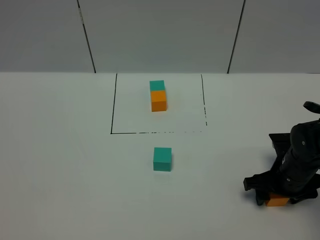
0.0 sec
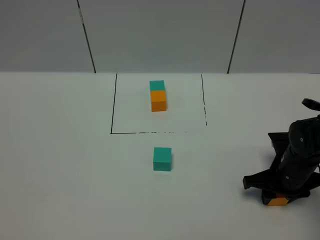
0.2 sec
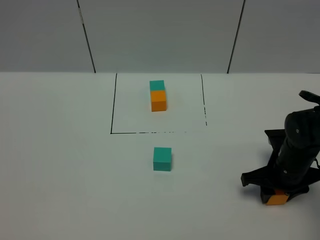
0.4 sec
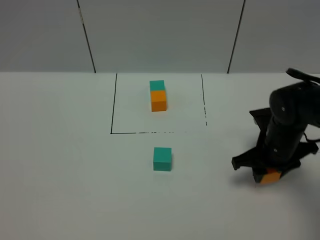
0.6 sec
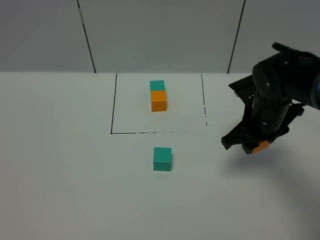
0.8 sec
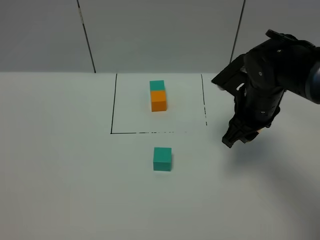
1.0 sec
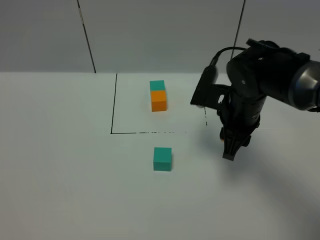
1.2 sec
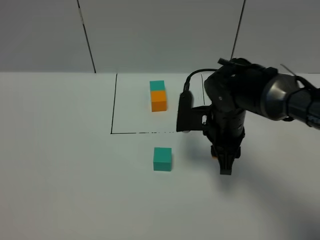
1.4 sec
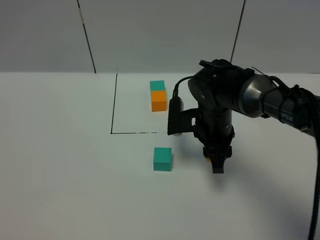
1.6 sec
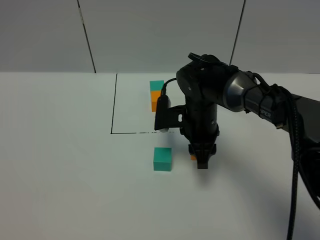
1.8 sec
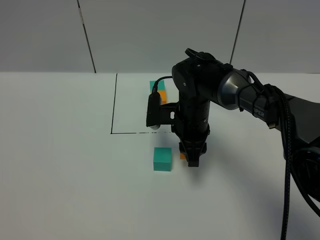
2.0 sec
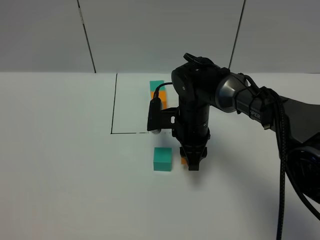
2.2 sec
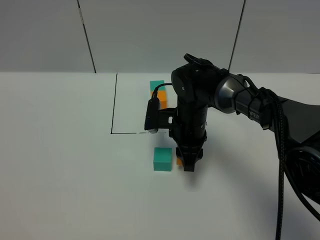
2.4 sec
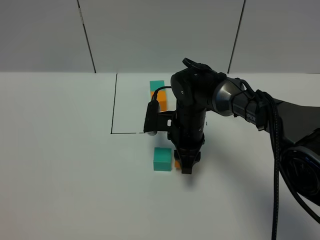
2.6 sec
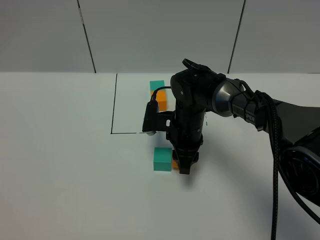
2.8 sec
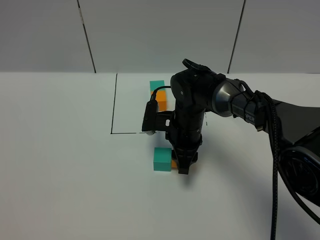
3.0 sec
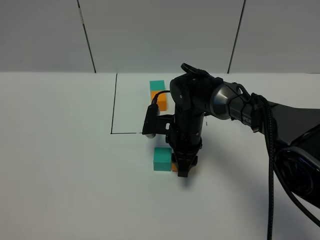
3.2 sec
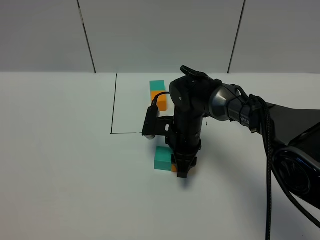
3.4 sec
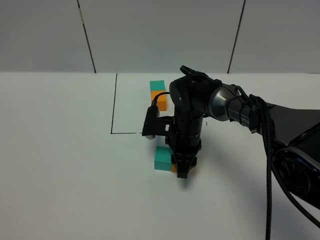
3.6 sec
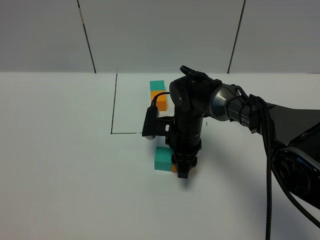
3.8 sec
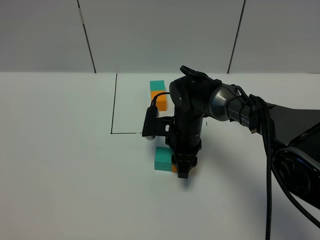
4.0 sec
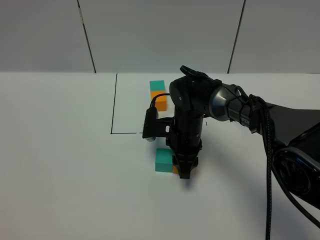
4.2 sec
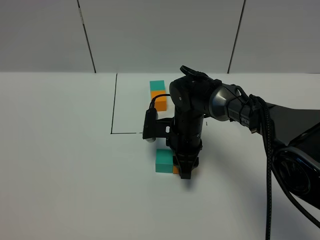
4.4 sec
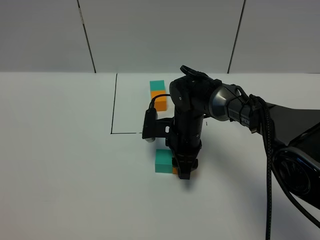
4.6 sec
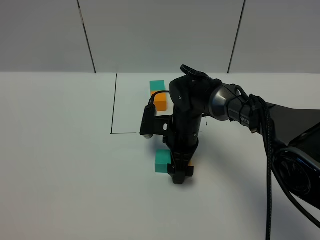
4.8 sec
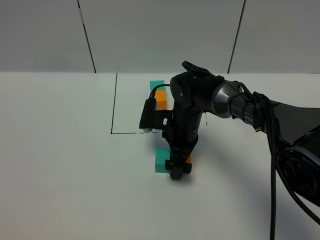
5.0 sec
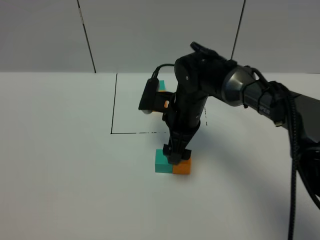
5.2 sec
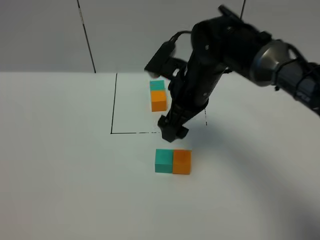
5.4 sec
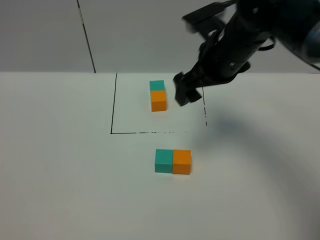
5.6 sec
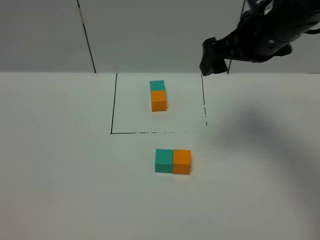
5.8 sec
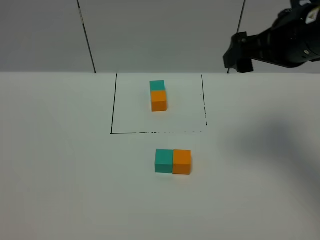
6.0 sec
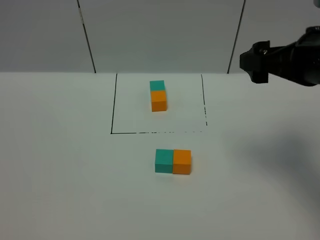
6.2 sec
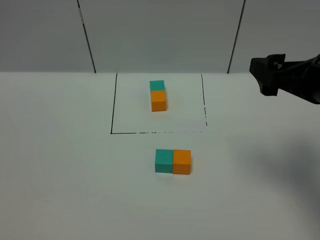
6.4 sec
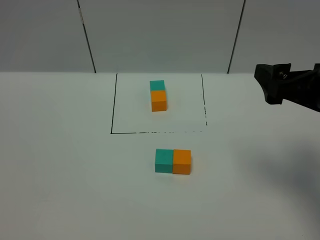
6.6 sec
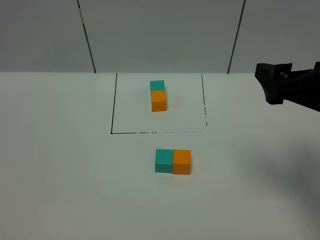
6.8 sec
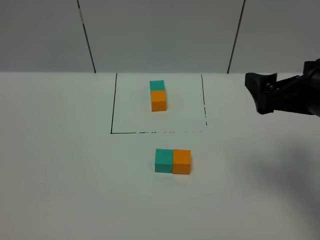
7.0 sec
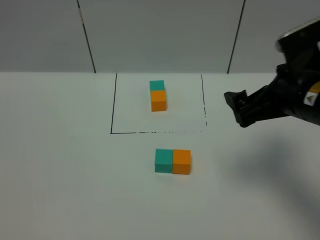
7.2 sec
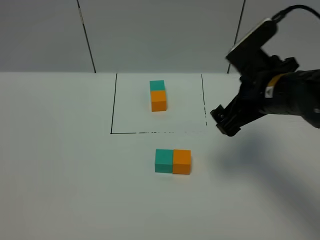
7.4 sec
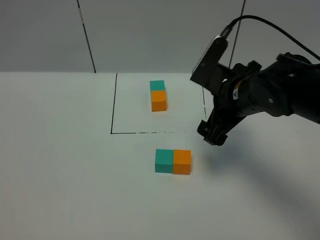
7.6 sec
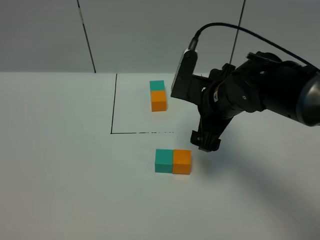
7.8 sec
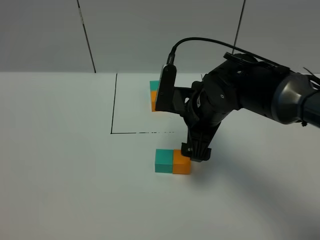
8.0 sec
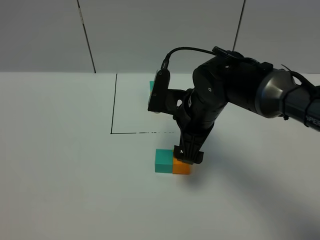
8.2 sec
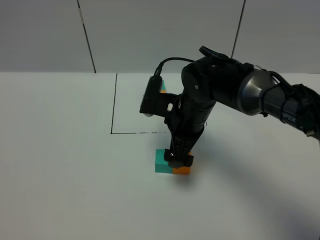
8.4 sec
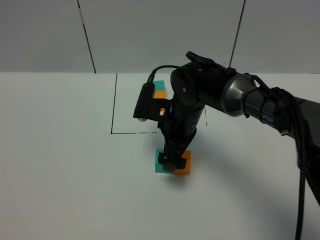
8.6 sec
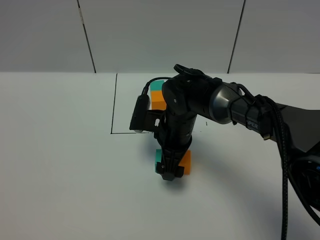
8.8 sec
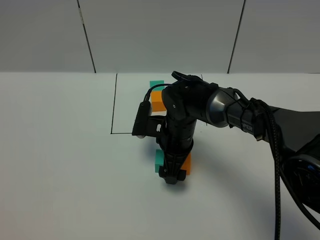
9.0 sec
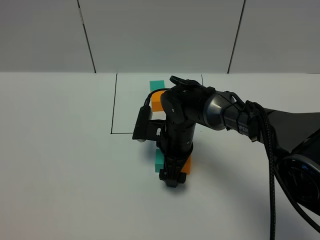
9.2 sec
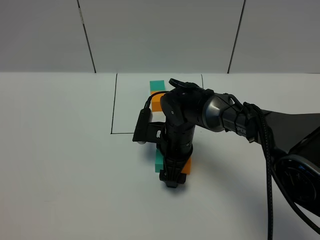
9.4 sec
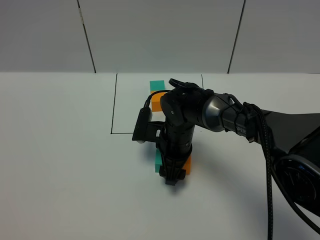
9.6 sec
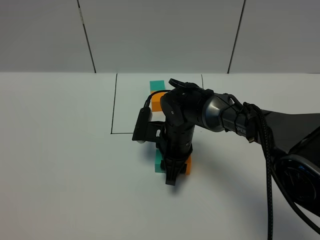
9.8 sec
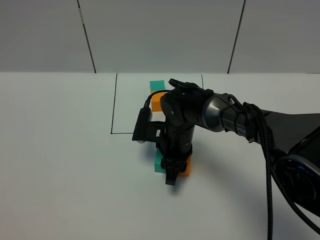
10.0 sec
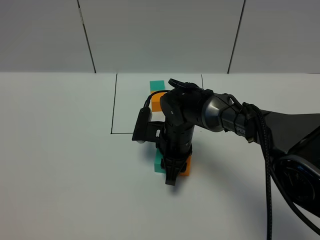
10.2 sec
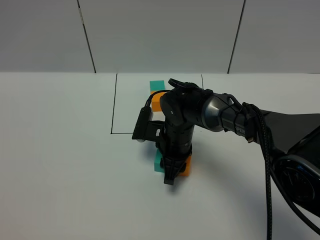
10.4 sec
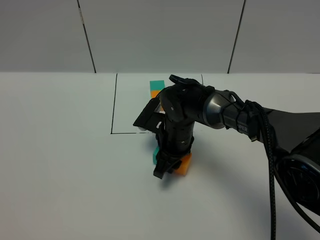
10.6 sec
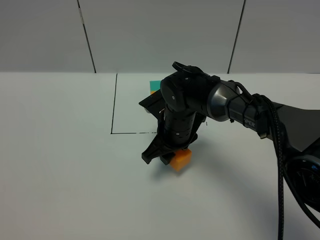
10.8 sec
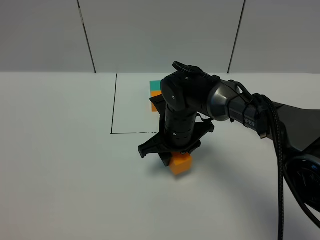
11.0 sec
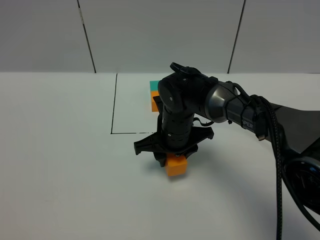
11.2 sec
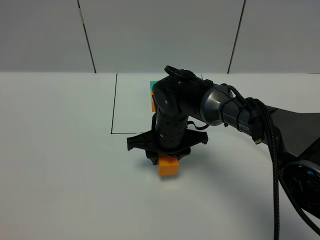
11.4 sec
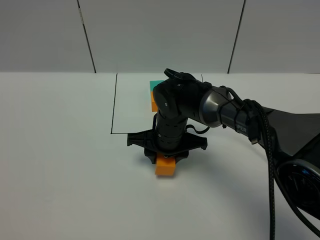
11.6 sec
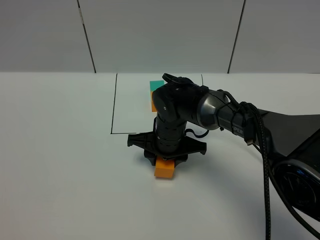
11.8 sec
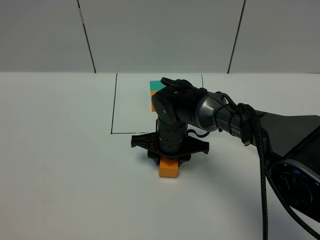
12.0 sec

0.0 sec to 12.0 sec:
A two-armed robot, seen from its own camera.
Task of the whole recording: According to the building block template in front, assemble the scattered blocks together.
Step, 0.0 sec to 4.8 sec: Put the orange cube on the right of the green cube.
0.0 sec to 1.6 sec: The right gripper moves to the left, forward and upward, approximately 20 cm, and closes its fingers.
1.6 sec to 3.0 sec: The right gripper moves roughly 5 cm.
3.0 sec to 4.4 sec: The grippers move only a little.
4.4 sec to 6.0 sec: The right gripper goes about 30 cm upward and to the right, and opens its fingers.
6.0 sec to 7.6 sec: The right gripper heads downward and to the left, covering about 15 cm.
7.6 sec to 9.0 sec: The right gripper goes about 15 cm downward and to the left.
9.0 sec to 10.4 sec: The right gripper closes its fingers.

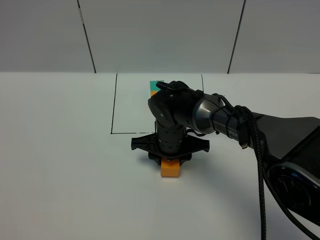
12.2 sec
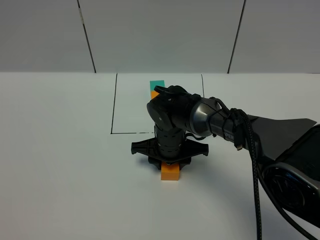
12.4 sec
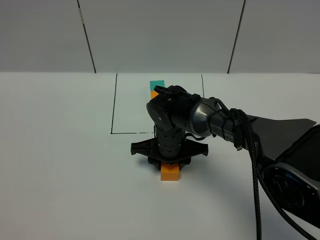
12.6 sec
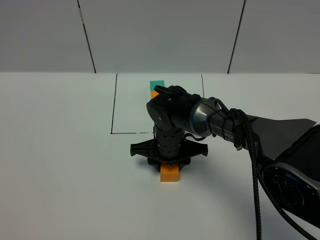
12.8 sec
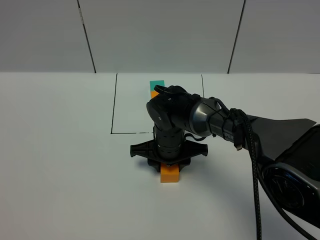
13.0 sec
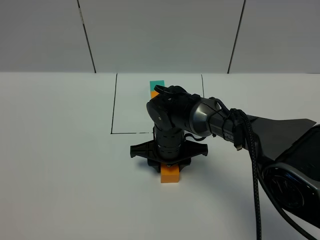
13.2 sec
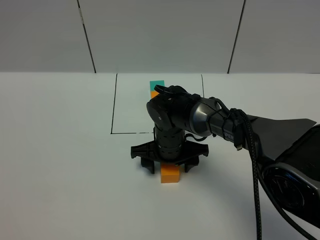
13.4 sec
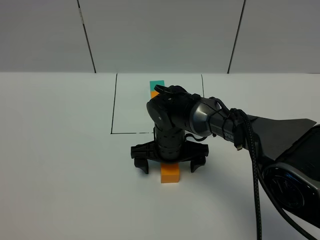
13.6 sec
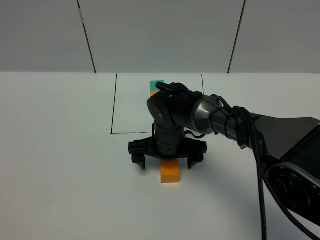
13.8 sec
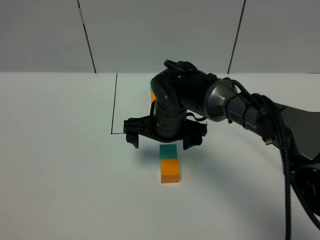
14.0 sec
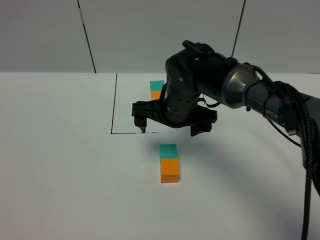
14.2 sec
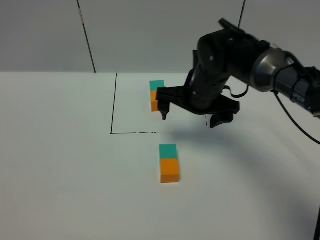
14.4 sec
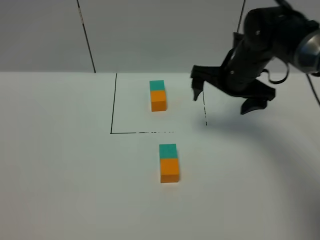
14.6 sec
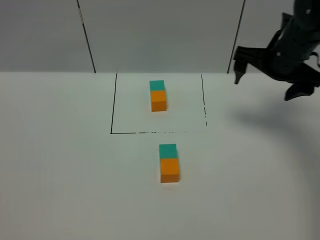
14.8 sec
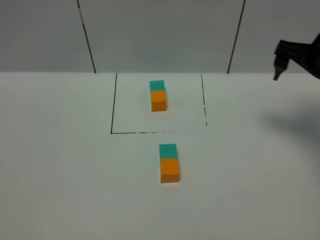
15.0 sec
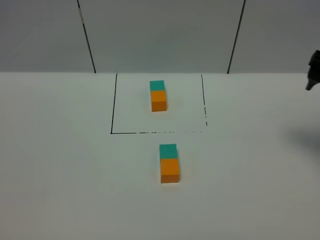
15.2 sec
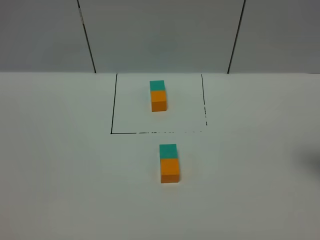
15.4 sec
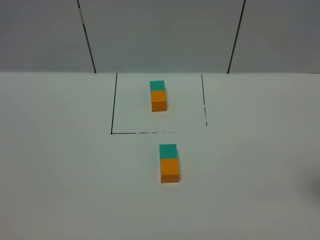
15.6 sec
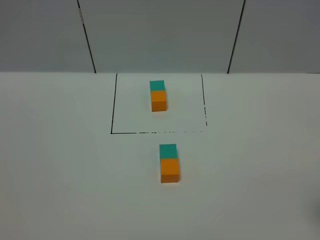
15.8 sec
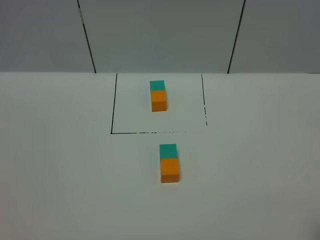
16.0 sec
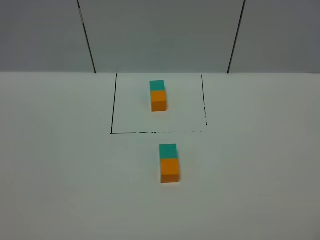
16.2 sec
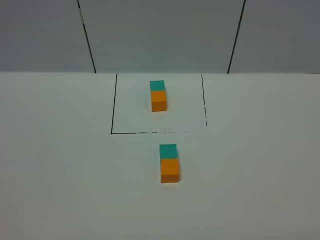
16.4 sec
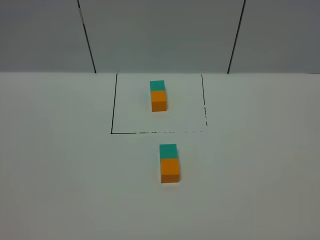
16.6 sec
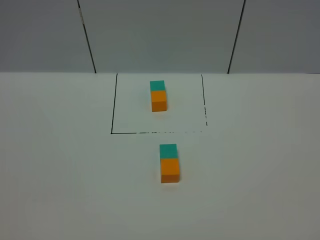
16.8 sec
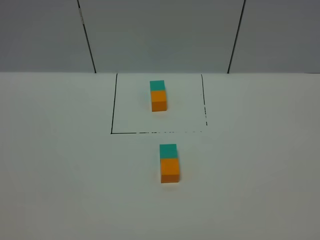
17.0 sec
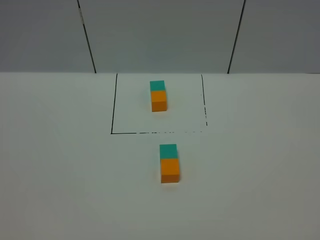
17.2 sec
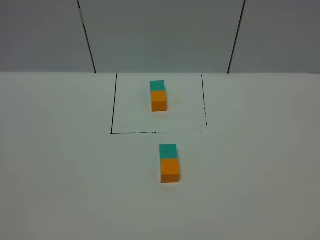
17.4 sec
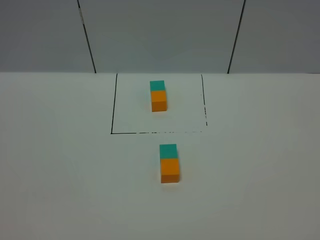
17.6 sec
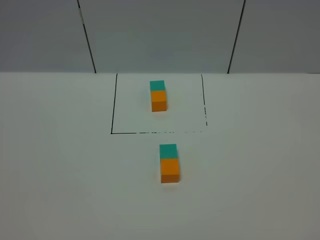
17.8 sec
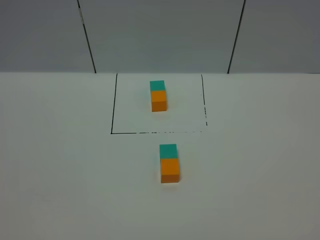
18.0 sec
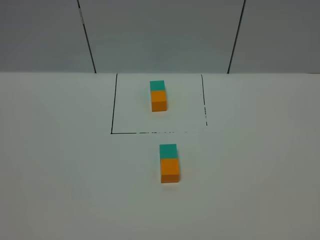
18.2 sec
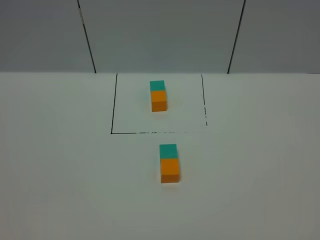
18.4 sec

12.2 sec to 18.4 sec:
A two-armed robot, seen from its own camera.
Task of the whole recording: According to the building block template in front, assemble the scattered blocks together.
12.2 sec to 13.8 sec: The right gripper opens its fingers.
13.8 sec to 15.4 sec: The right gripper travels to the right, upward and backward by approximately 40 cm.
16.8 sec to 18.4 sec: Both grippers stay about where they are.

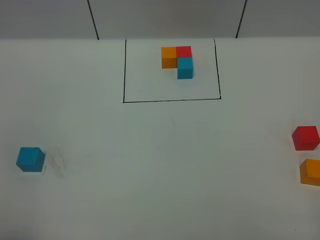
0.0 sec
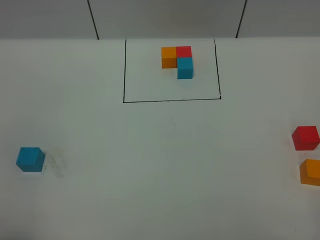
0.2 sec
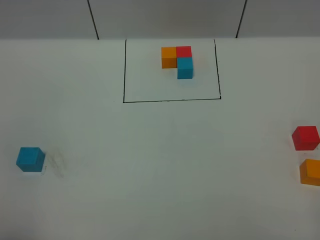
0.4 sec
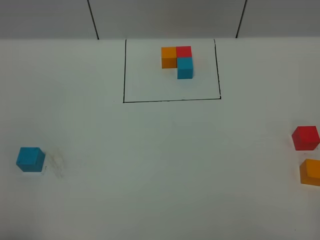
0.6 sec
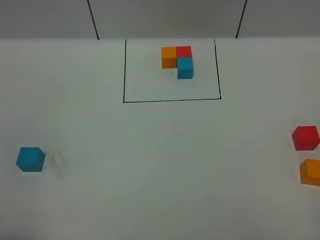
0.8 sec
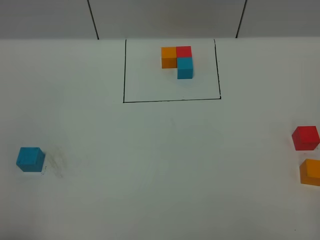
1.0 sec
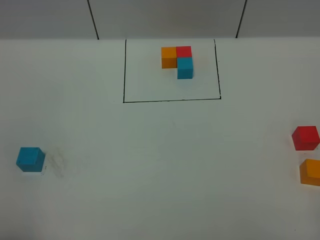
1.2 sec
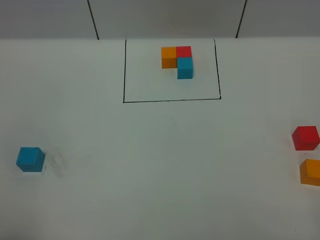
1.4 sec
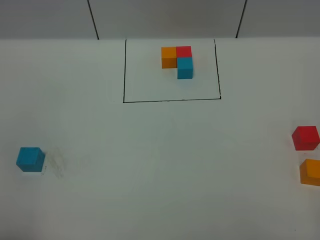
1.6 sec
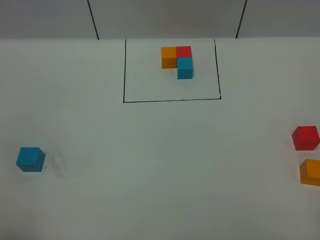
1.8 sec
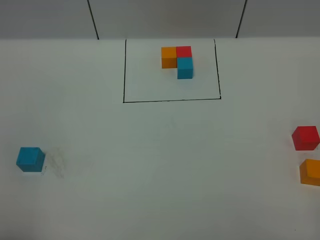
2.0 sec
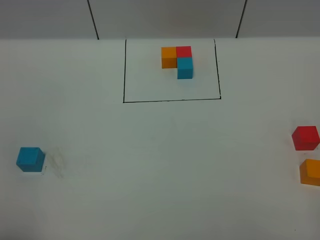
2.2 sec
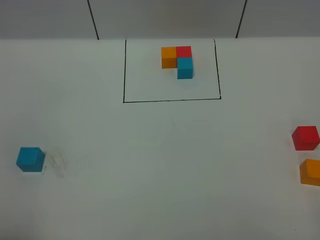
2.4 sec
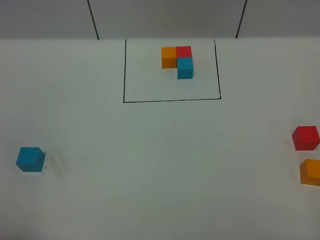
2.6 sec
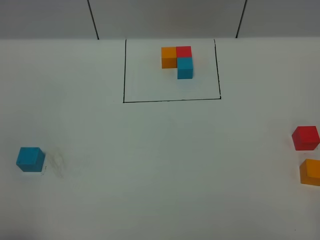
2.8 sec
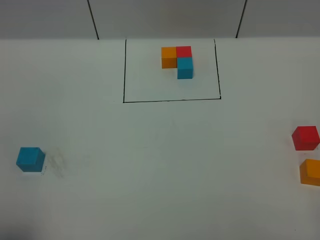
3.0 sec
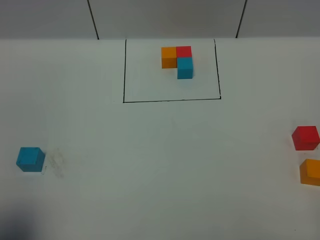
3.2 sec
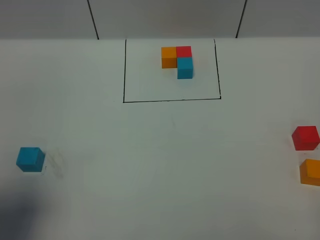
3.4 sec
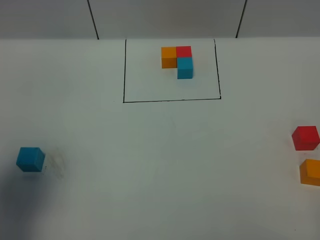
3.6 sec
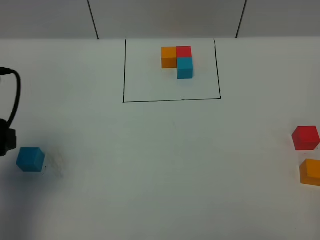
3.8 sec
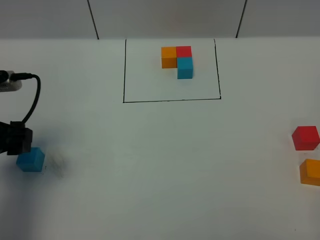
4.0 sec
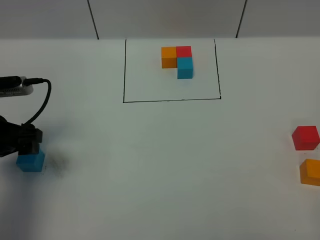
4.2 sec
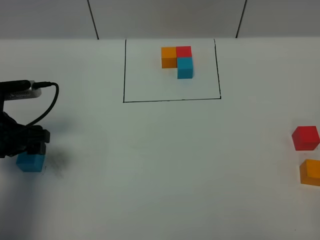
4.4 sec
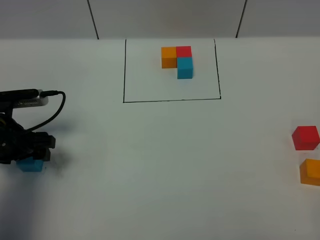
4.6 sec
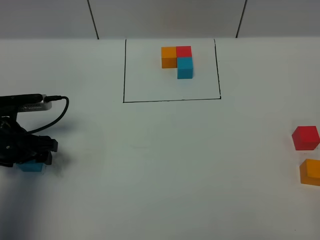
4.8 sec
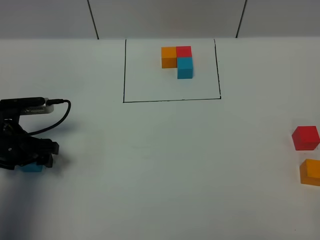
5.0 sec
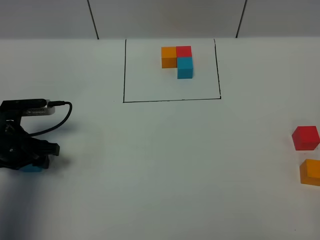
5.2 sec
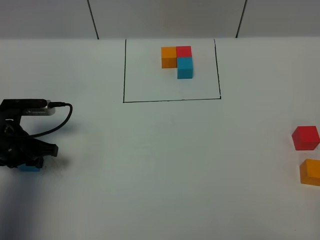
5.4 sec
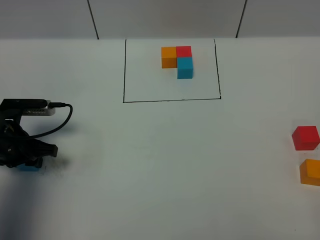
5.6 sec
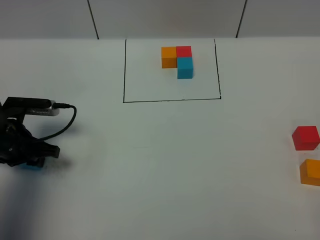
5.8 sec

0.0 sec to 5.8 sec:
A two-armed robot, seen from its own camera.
Task of the whole recording: According to the building block template in front, assemble the scattered blocks together.
0.0 sec to 1.4 sec: Both grippers stay about where they are.
2.8 sec to 4.4 sec: The left gripper moves forward, approximately 25 cm.
4.4 sec to 5.8 sec: The left gripper closes.
